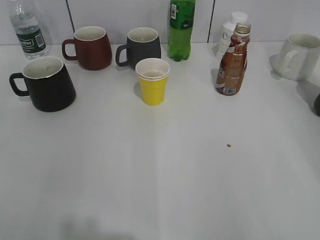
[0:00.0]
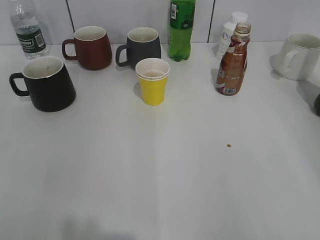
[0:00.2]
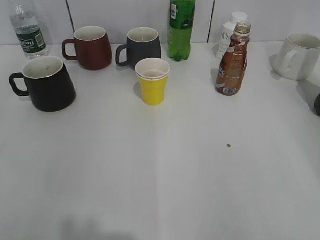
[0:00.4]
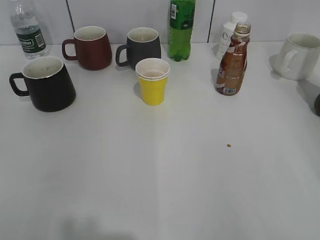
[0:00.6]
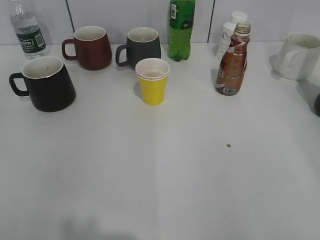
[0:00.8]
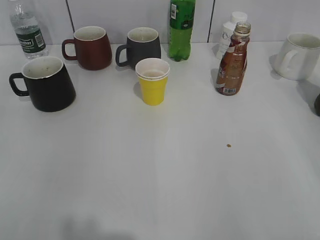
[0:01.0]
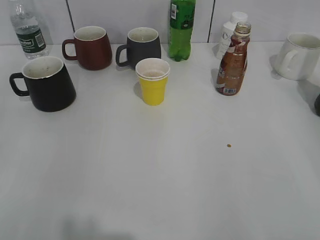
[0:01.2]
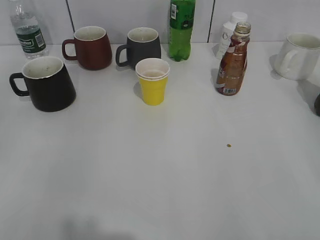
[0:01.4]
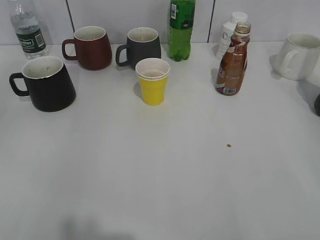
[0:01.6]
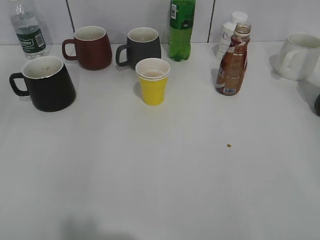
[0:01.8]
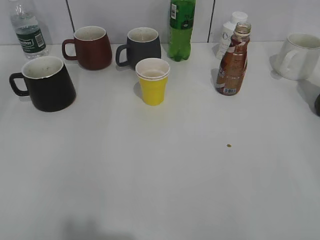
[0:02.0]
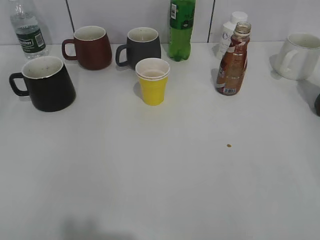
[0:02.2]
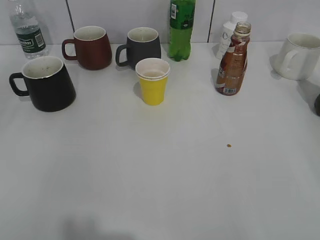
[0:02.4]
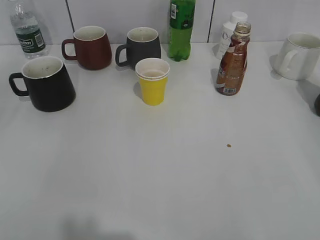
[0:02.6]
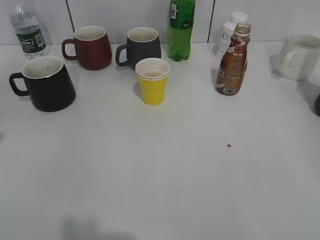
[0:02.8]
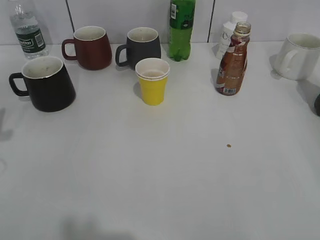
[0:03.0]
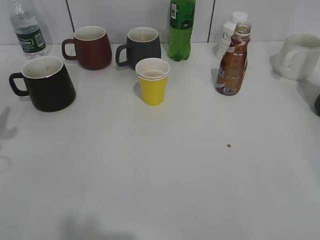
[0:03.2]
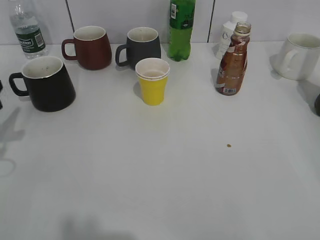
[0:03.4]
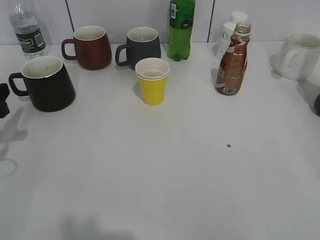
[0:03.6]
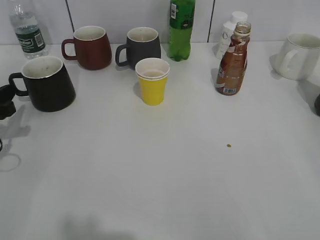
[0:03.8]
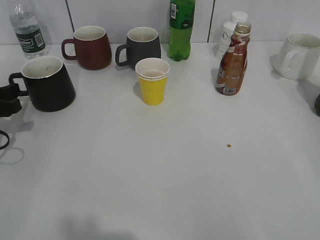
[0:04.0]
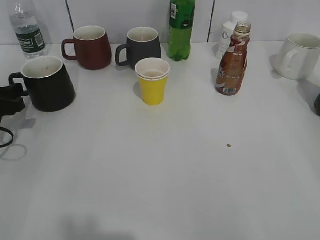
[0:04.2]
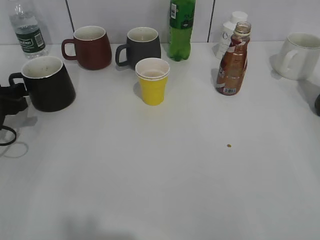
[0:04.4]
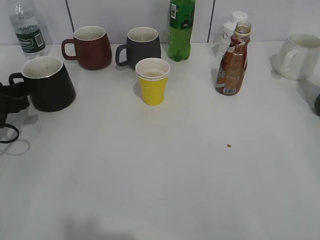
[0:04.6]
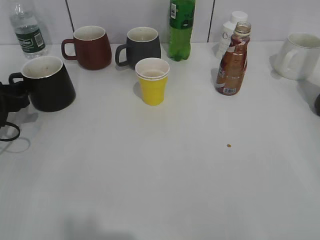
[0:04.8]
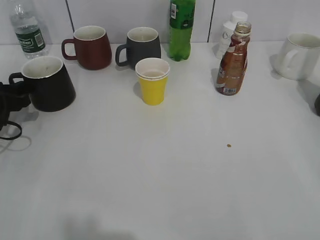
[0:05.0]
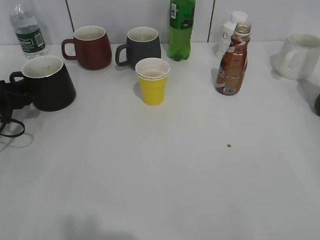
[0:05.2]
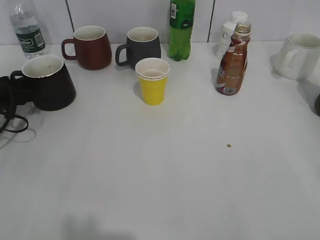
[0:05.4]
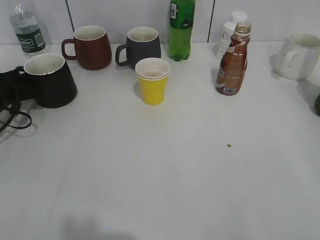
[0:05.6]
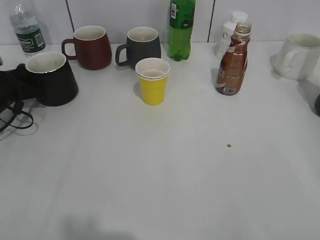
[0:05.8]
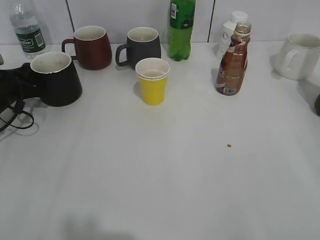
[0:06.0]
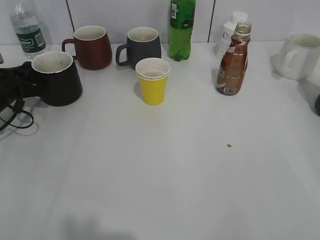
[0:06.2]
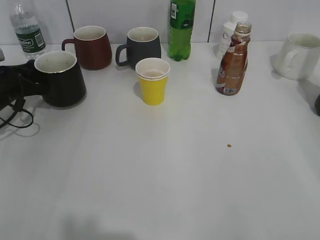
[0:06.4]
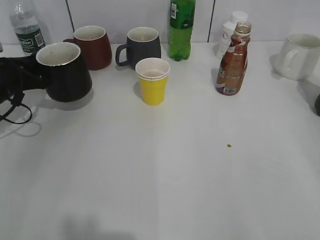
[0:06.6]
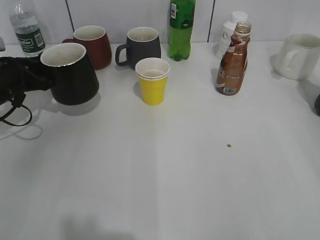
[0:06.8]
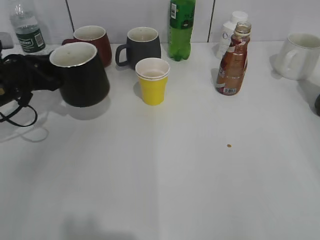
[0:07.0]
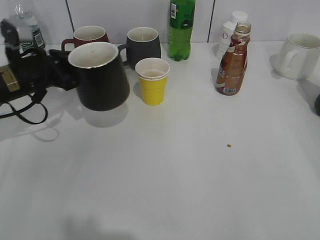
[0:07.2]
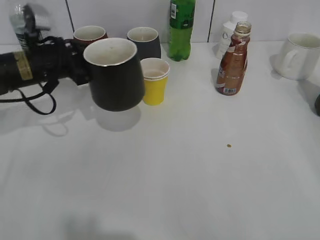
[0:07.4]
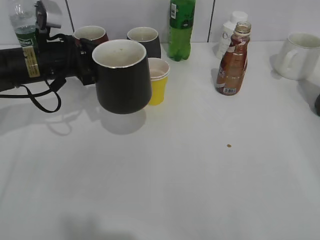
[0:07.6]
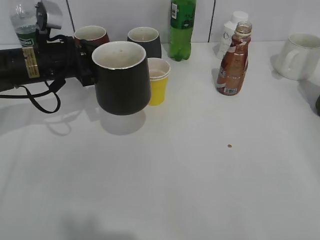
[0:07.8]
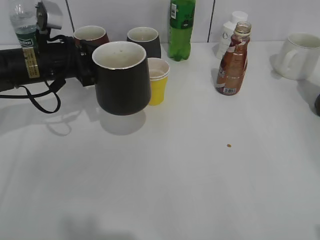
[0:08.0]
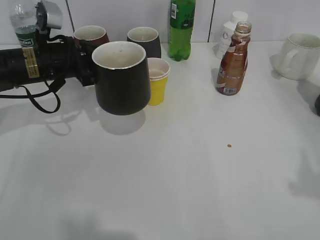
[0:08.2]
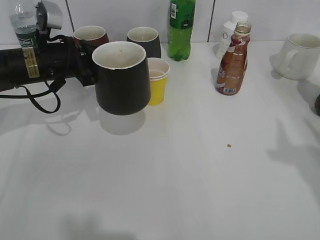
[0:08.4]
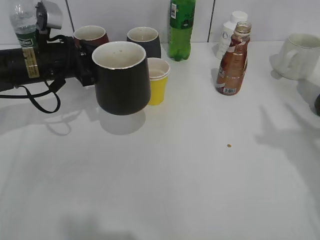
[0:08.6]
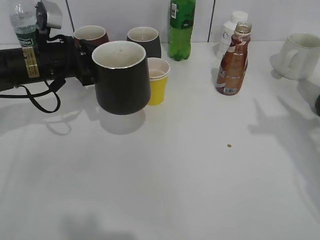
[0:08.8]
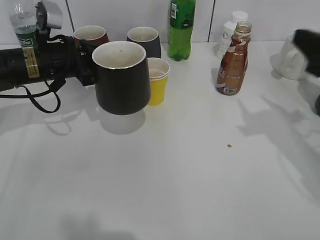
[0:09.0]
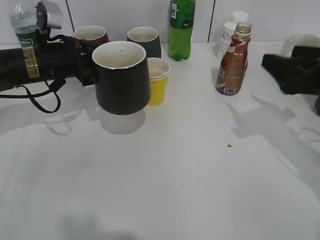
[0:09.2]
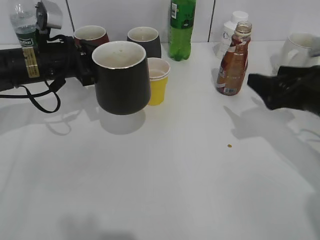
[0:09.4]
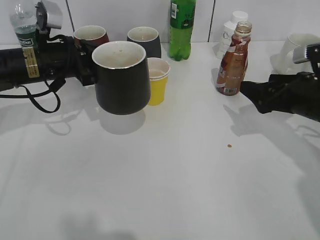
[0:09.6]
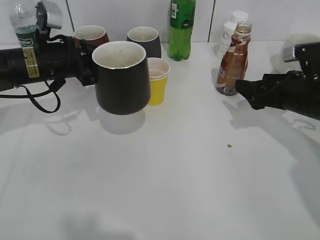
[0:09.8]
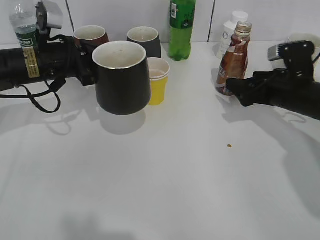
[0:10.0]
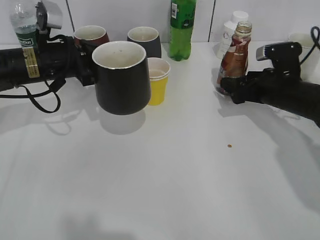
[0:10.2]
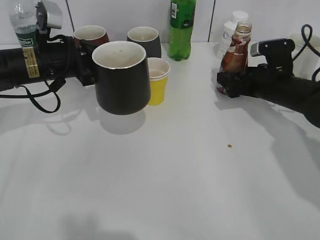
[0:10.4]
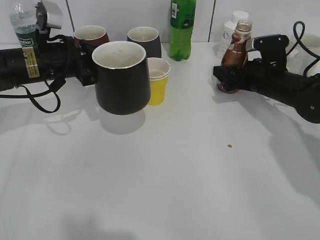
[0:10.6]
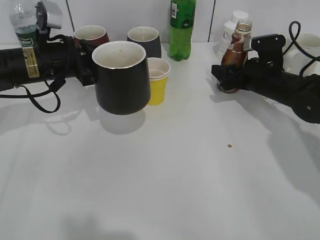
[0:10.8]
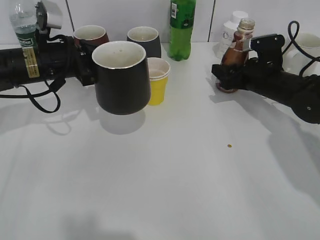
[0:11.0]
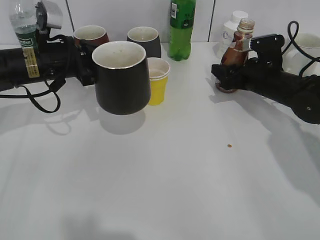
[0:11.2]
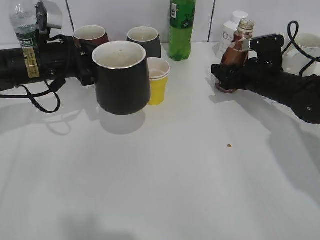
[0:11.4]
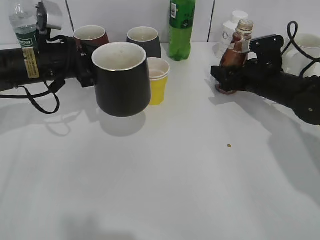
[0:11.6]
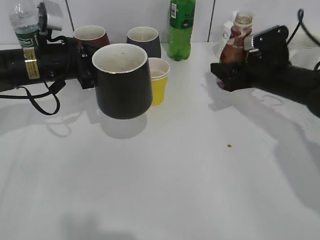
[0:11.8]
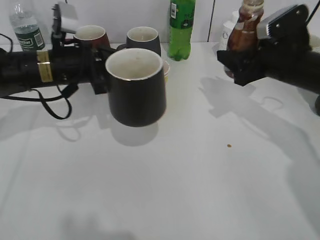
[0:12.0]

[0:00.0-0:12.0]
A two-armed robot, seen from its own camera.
Step, 0:01.2 to 0:06.0: Grasp the black cup with left gripper.
Step, 0:06.2 to 0:07.6: Lift the black cup with left gripper.
Step, 0:08.0 to 0:11.4: Grasp the bottle with coffee with right gripper.
0:03.0 to 0:04.4: The left gripper is displaced downward and forward by approximately 10 cm.
0:04.4 to 0:06.0: The left gripper heads forward, covering roughly 5 cm, and closes.
0:06.0 to 0:07.6: The left gripper heads to the right and upward, covering some 15 cm.
0:07.6 to 0:09.0: The right gripper is displaced forward by some 25 cm.
0:09.0 to 0:10.4: The right gripper travels downward and forward by roughly 20 cm, and opens its fingers.
0:10.4 to 0:12.0: The right gripper heads upward, covering roughly 5 cm, and closes up.

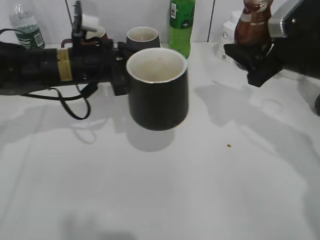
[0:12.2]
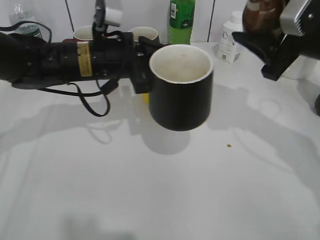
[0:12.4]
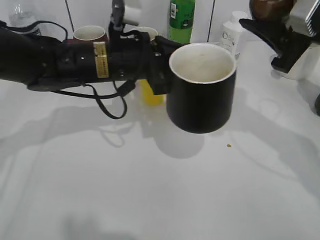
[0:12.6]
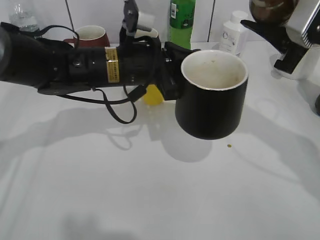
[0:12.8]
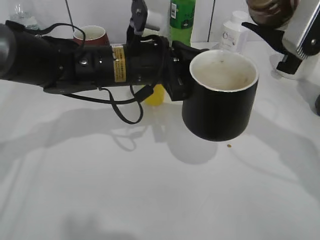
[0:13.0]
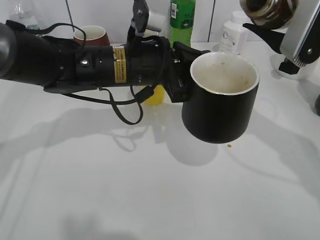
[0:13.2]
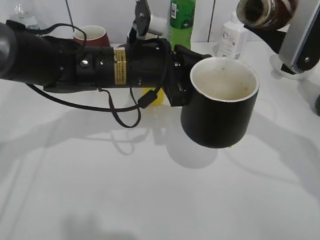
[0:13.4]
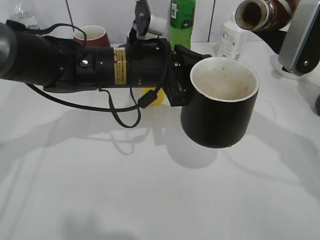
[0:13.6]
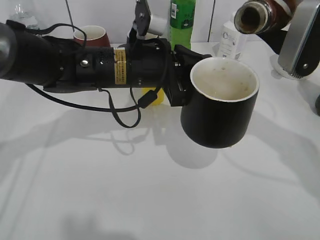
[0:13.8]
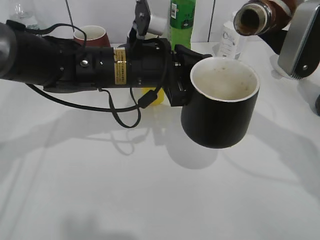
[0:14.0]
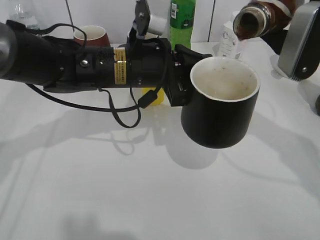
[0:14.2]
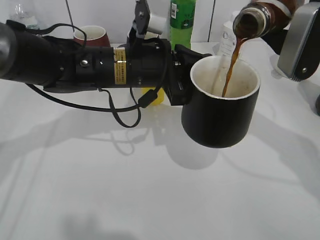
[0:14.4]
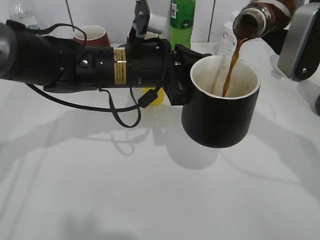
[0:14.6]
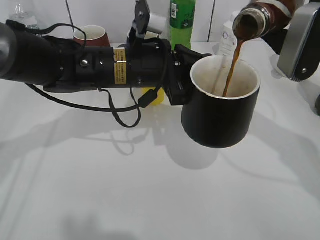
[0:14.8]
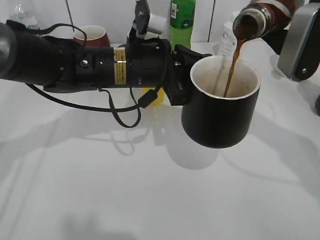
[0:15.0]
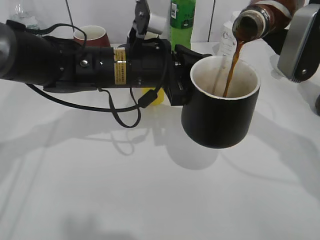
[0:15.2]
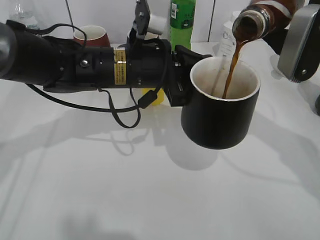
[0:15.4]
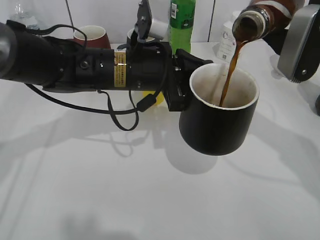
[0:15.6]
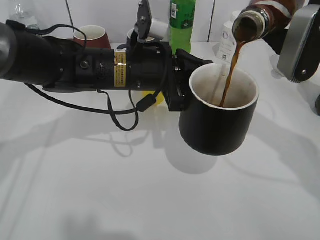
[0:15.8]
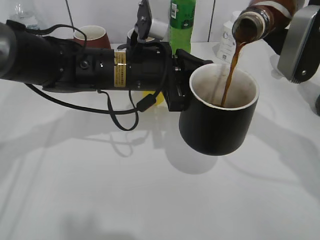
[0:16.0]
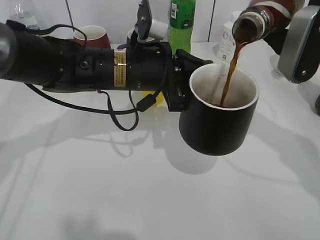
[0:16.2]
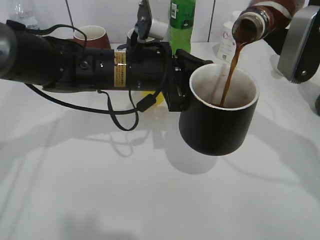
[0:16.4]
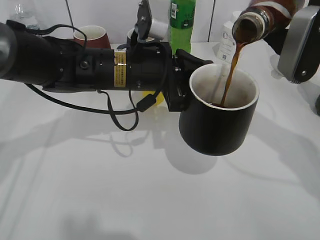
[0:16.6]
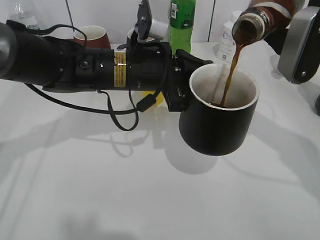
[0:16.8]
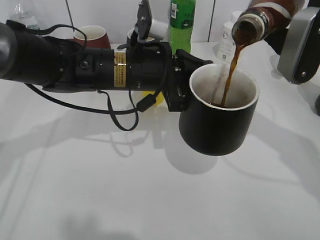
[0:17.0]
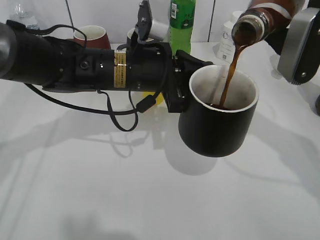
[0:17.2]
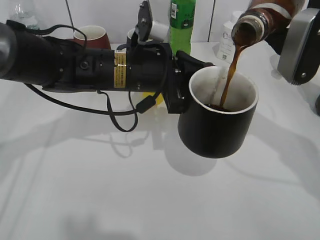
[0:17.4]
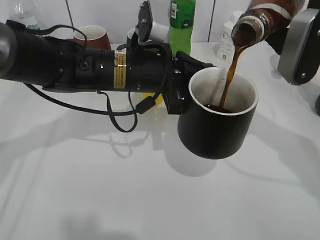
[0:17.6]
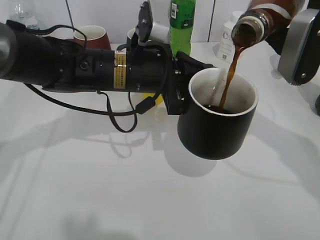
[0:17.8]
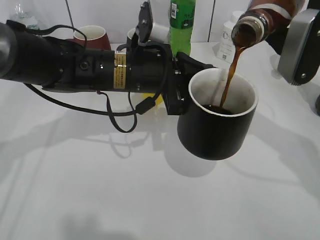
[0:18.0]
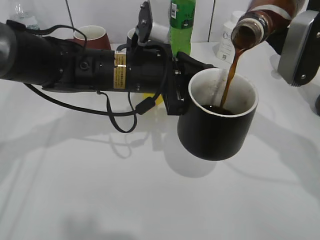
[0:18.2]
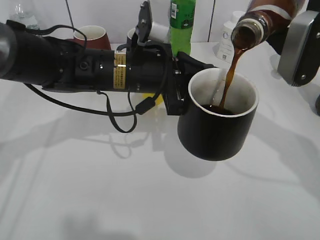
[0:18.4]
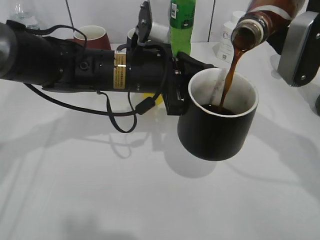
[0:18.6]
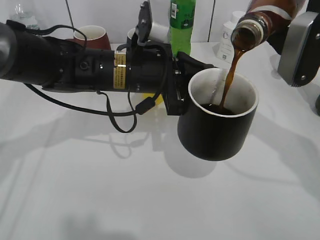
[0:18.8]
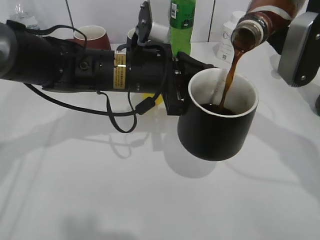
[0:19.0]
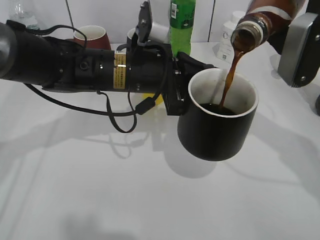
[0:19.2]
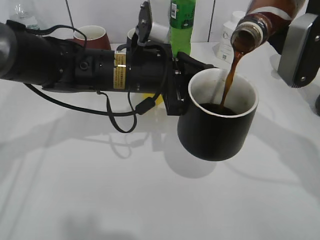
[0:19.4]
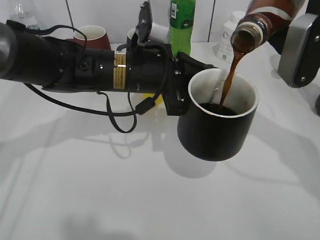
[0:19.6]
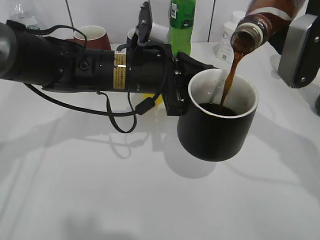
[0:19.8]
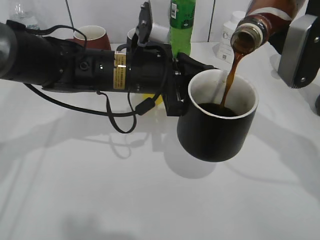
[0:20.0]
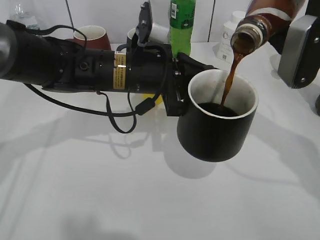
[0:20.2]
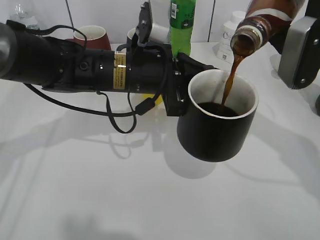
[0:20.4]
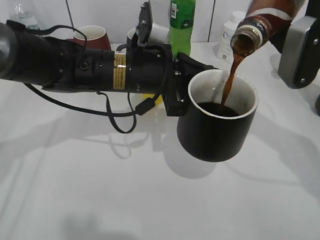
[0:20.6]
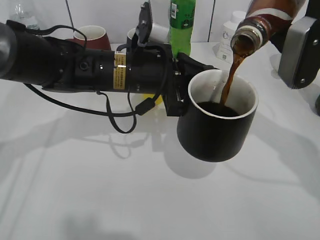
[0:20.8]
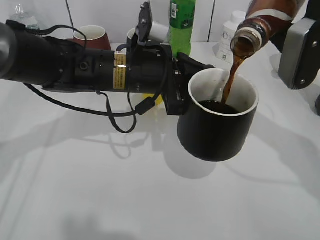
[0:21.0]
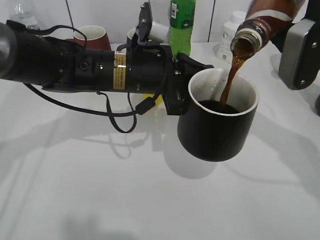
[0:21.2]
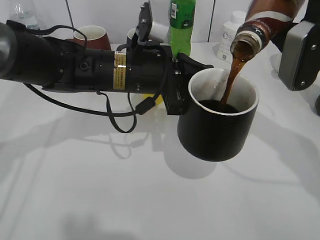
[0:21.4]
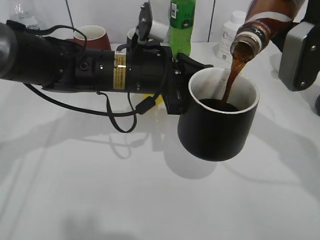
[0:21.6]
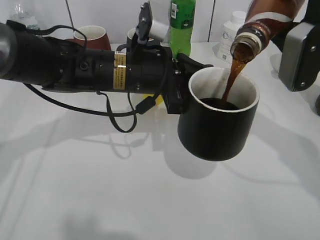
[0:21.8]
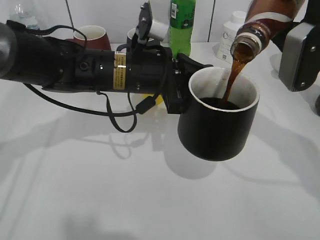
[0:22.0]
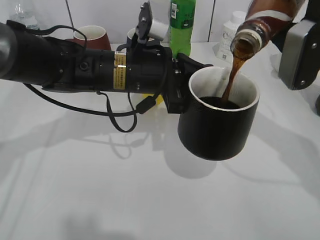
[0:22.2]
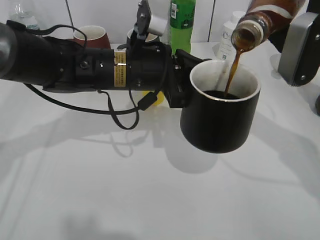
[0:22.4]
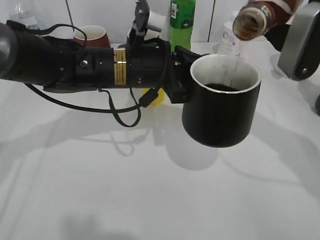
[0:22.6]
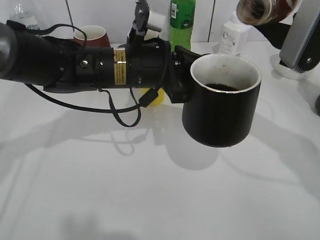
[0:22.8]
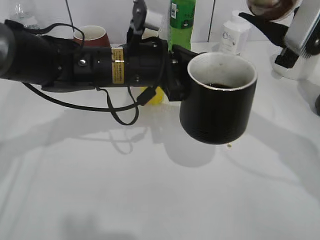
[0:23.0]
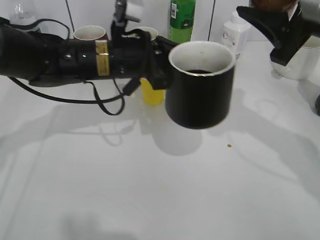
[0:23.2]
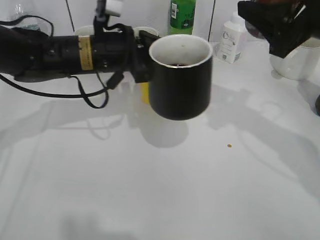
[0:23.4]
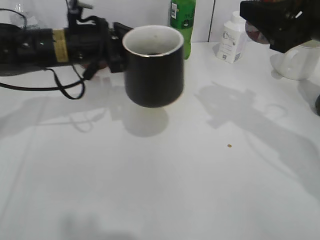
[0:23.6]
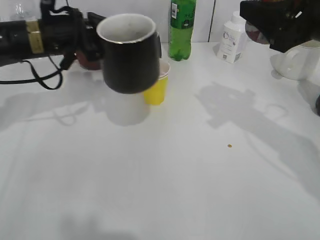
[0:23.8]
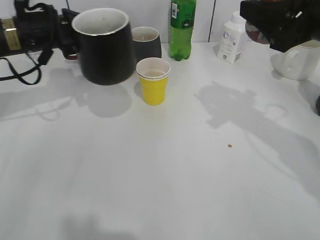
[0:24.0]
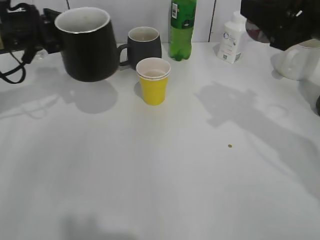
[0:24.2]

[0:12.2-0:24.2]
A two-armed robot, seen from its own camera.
Step, 0:12.2 to 0:22.6: Pour the coffee from bottle to cup with right gripper.
0:12.2 to 0:13.8: The right gripper moves upward, approximately 5 cm, while the left gripper moves to the right, about 10 cm.
0:13.8 to 0:15.2: Neither gripper changes place.
0:15.2 to 0:16.6: Neither gripper changes place.
0:16.6 to 0:18.2: Both grippers stay about where they are.
0:18.2 to 0:19.8: Neither gripper changes place.
0:19.8 to 0:21.2: The two grippers keep their place.
0:21.2 to 0:22.6: The grippers move only a little.
0:22.6 to 0:24.2: The left gripper travels to the left and forward by approximately 20 cm.
